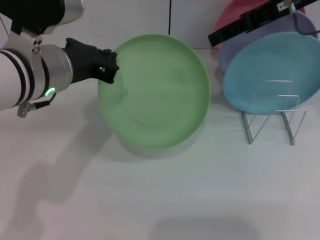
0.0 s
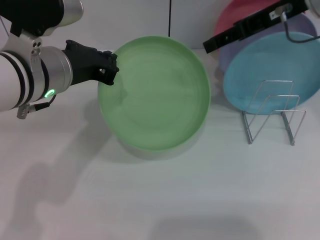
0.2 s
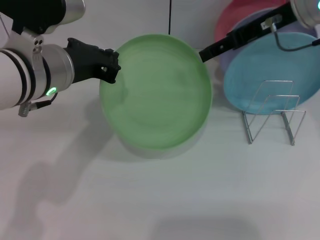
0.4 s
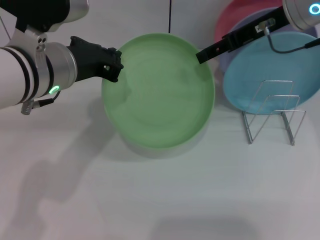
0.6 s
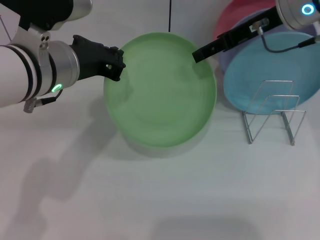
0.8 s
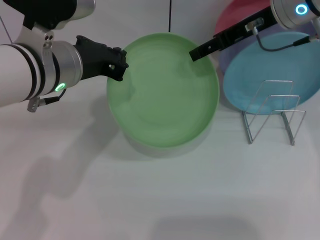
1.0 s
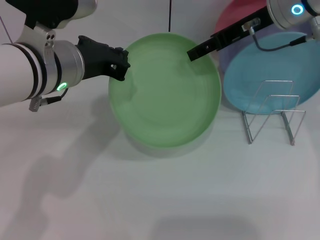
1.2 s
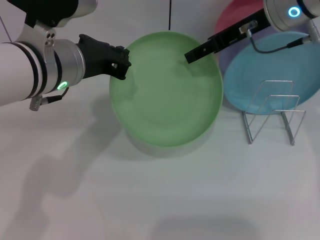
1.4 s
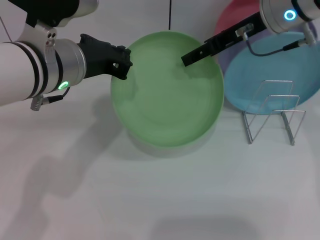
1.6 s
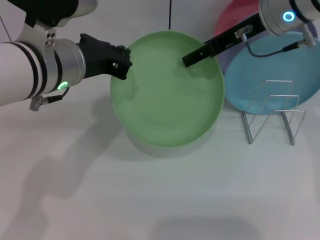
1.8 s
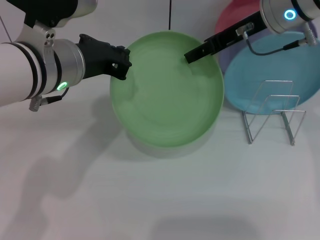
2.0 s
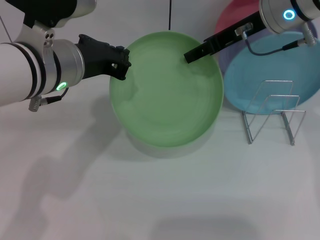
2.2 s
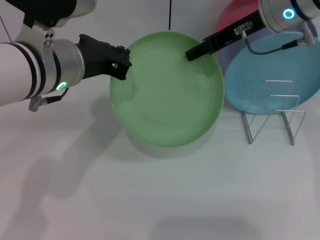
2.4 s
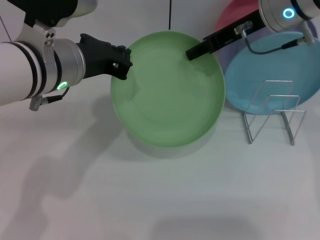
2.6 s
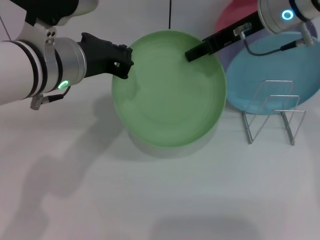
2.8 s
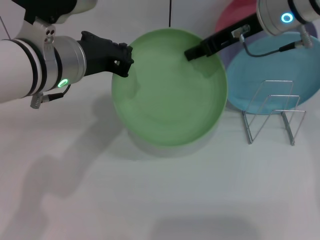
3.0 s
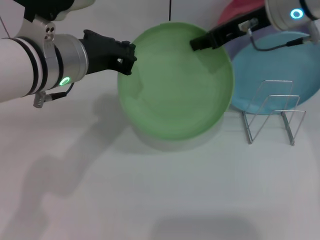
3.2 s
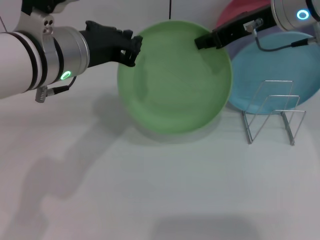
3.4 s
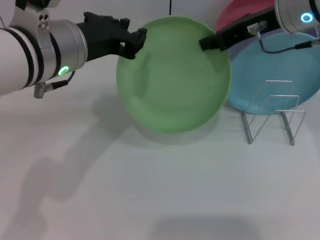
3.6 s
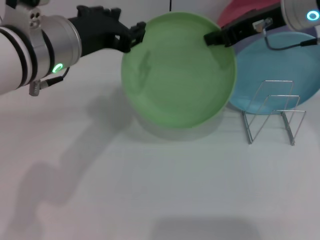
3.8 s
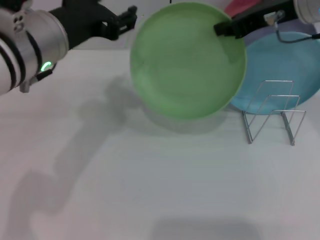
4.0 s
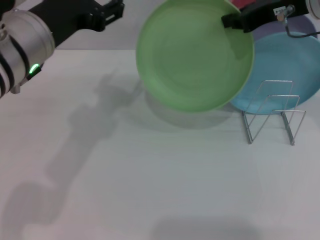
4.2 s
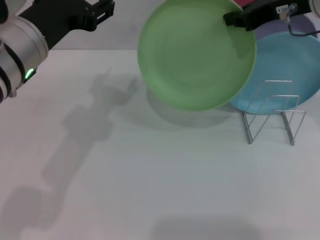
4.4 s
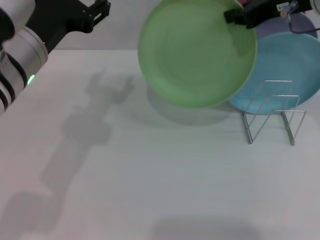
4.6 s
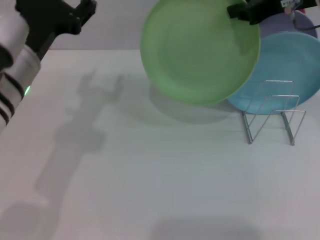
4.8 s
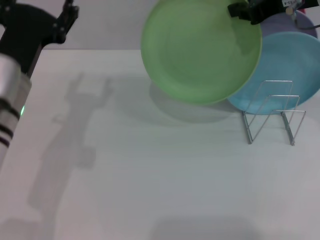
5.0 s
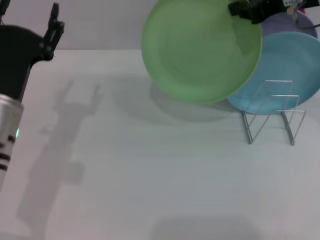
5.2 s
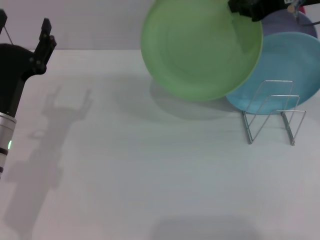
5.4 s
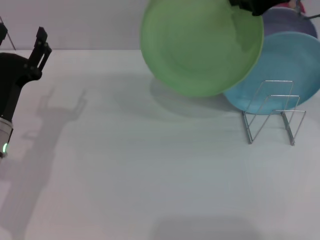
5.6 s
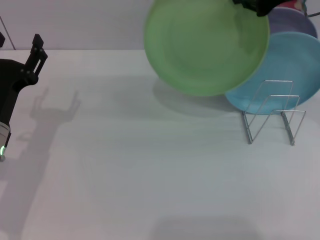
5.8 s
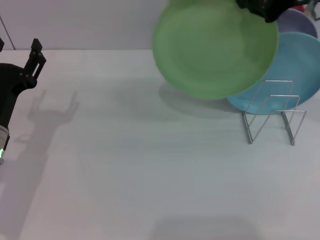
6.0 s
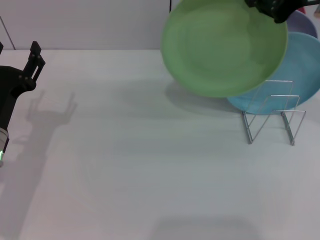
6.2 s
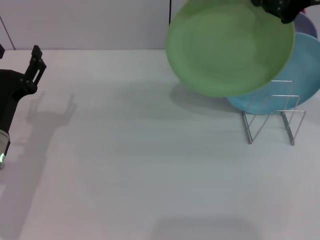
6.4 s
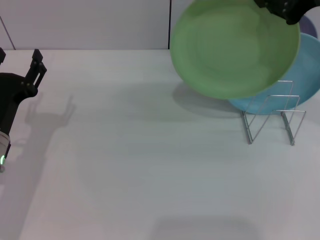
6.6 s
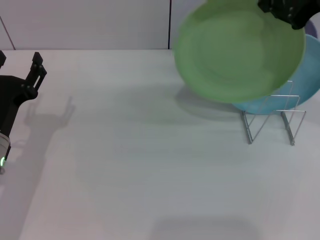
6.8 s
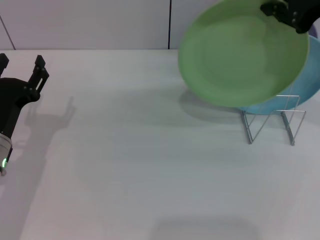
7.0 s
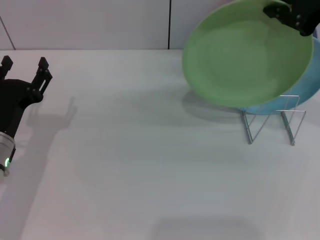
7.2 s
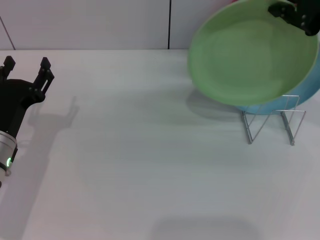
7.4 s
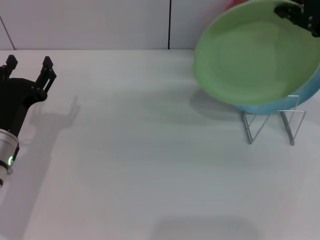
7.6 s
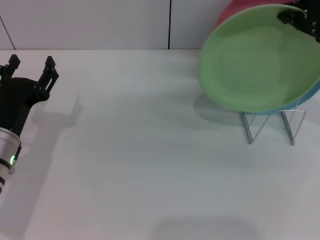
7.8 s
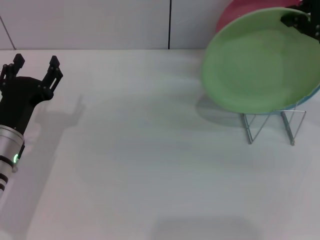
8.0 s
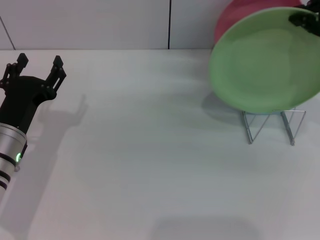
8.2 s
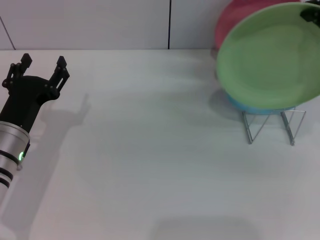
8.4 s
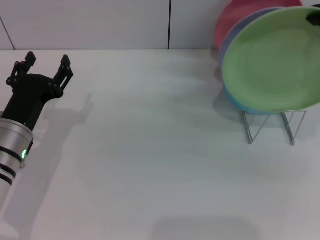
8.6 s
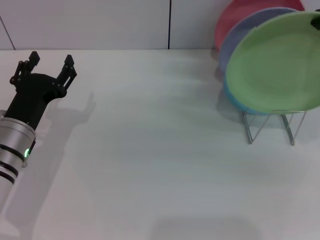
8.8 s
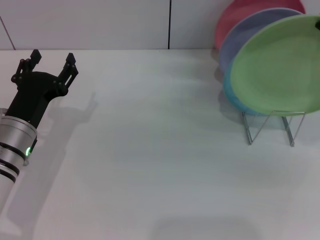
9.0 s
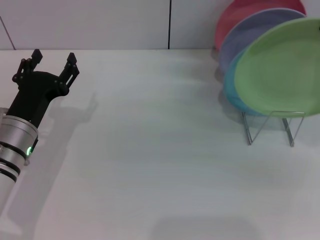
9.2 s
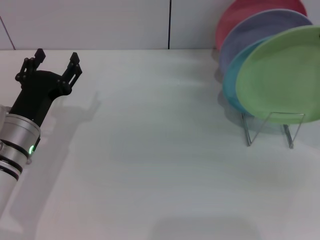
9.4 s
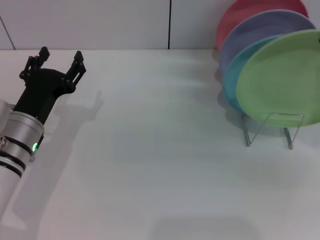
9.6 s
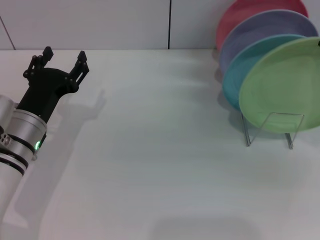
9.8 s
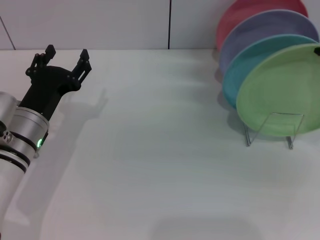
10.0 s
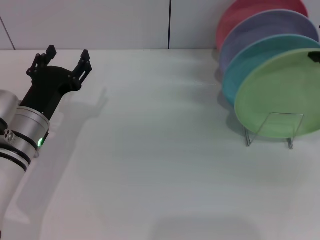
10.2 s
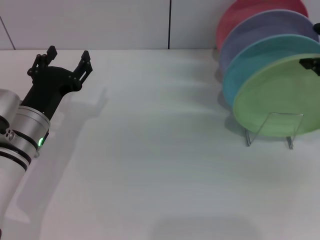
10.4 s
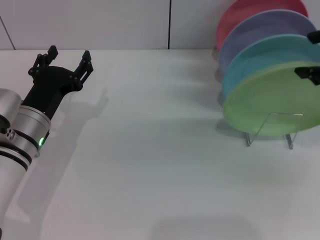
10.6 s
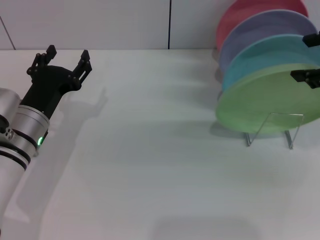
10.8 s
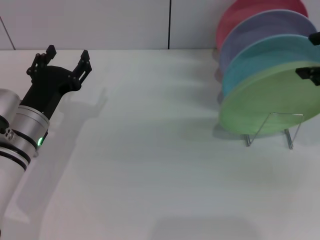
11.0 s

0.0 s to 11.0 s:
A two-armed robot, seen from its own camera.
Task of the whole recording: Grip the plate with one hand, pass it to the other, then set it on the shelf.
Step, 0.0 to 4.4 s: Pass the plate from the left gripper to the right gripper.
0.0 to 1.6 s: The right gripper heads downward, covering approximately 5 cm.
1.6 to 3.2 s: The right gripper closes up.
3.2 to 4.8 s: The right gripper ends up about 5 cm from where it was; the left gripper changes place by some 5 cm, and opens.
4.8 to 6.2 s: The left gripper moves downward and to the left, approximately 15 cm.
6.2 to 7.8 s: The grippers move only a little.
7.8 to 9.4 s: The right gripper changes place by about 5 cm.
9.4 to 11.0 s: The right gripper opens up.
